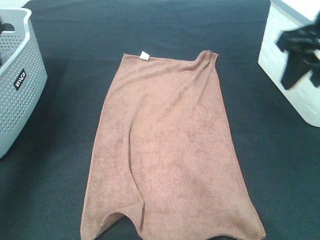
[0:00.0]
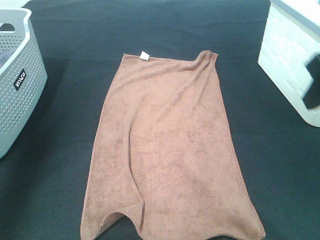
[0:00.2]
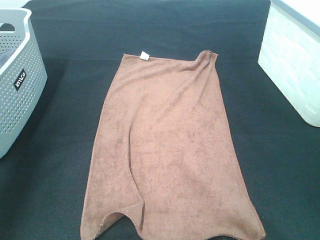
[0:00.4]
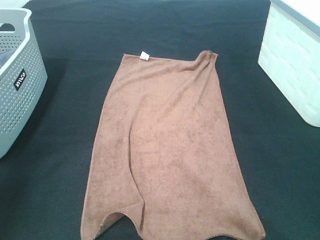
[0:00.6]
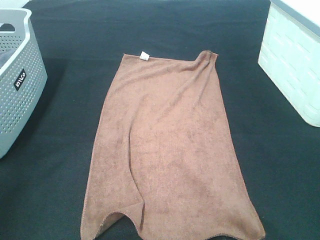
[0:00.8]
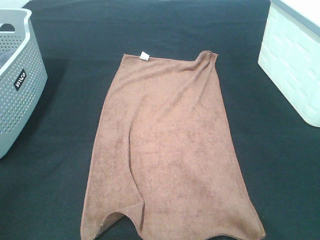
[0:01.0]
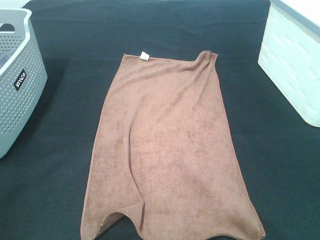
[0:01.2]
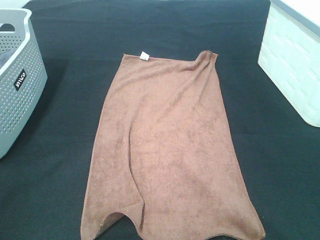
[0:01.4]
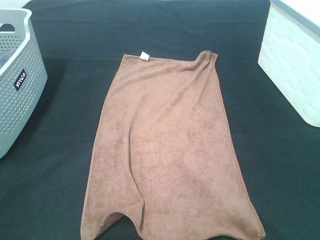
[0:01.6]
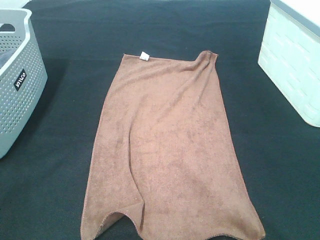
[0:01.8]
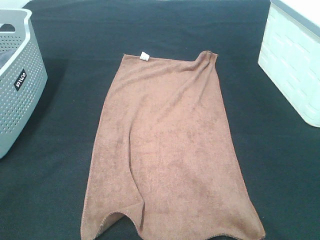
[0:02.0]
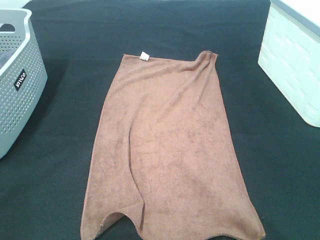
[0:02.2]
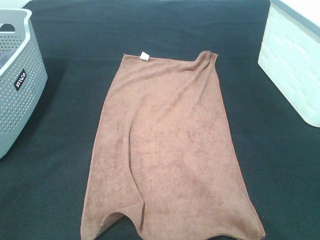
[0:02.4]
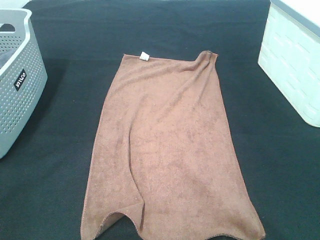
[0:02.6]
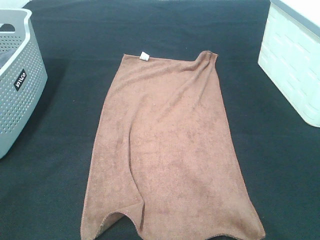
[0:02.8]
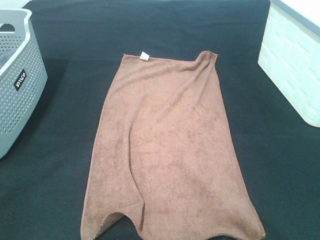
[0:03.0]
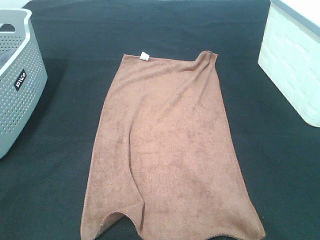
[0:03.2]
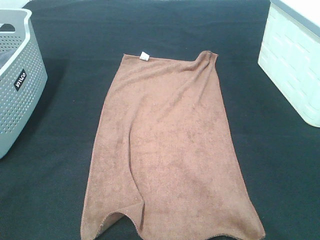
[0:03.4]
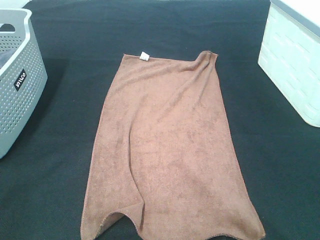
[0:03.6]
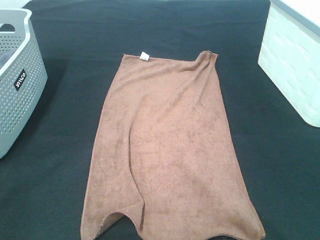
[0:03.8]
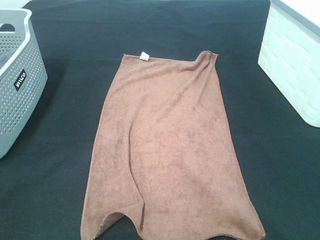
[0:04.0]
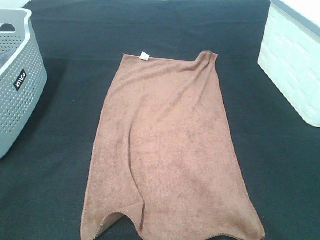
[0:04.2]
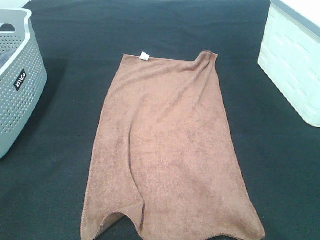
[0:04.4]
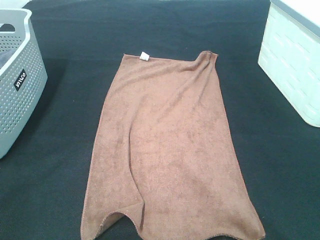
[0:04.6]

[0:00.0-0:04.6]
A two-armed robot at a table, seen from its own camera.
Task of the whole recording: Remove the towel and place it.
0:00.0 to 0:01.6: The two grippers go approximately 30 cm backward.
0:03.0 to 0:04.6: Both grippers stay put.
